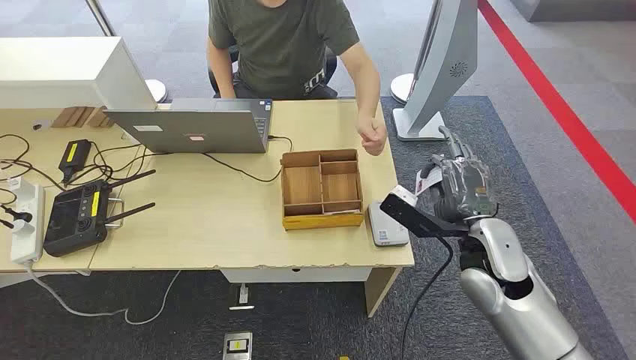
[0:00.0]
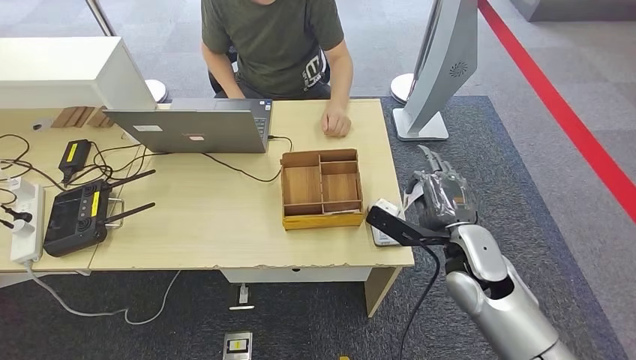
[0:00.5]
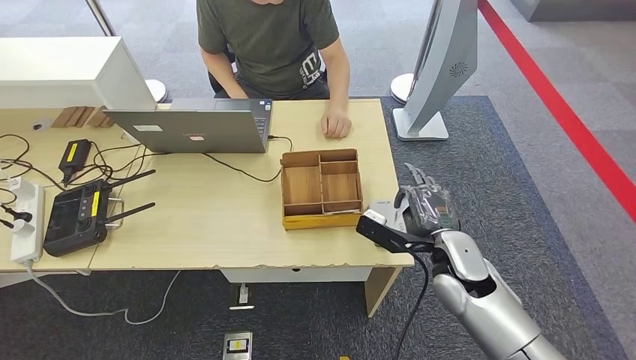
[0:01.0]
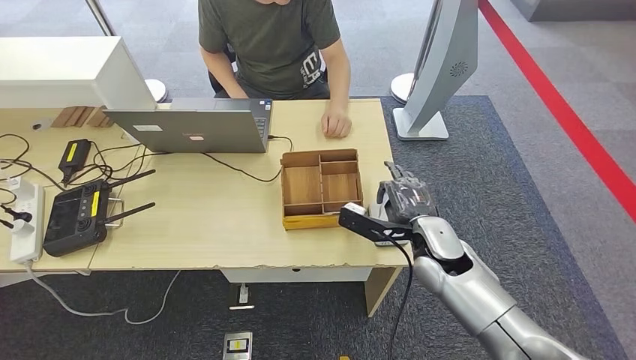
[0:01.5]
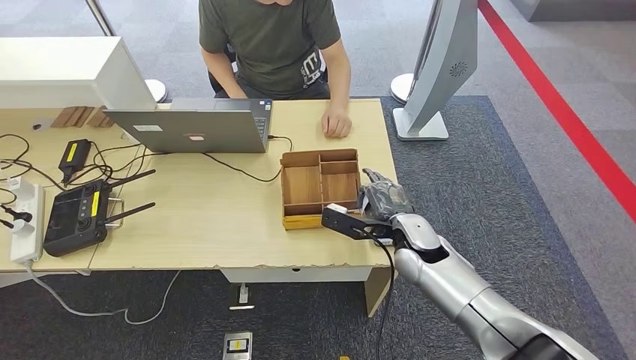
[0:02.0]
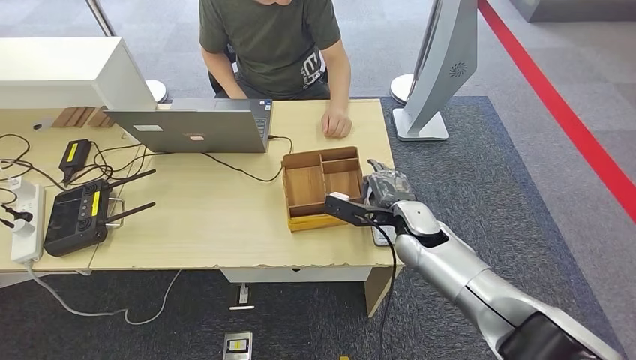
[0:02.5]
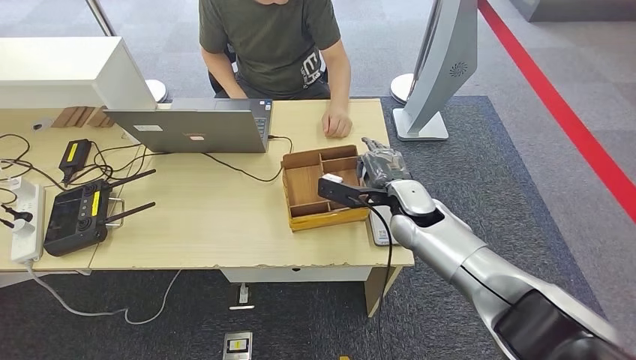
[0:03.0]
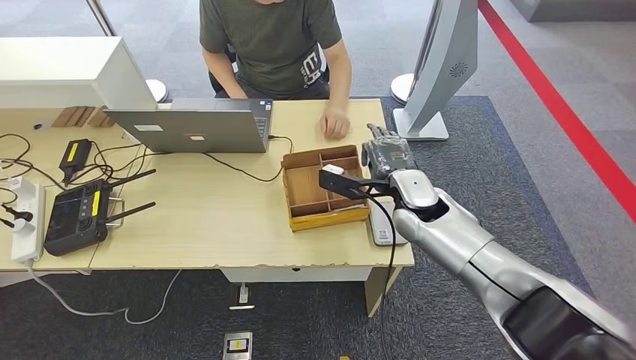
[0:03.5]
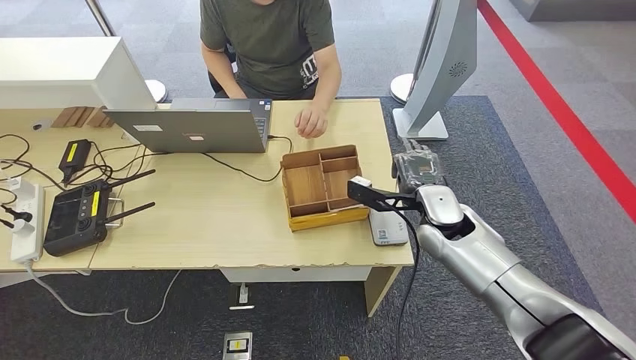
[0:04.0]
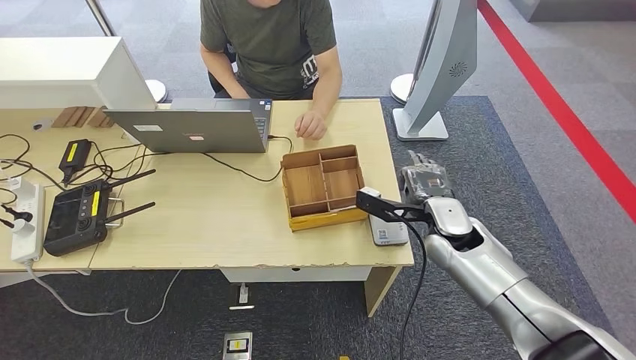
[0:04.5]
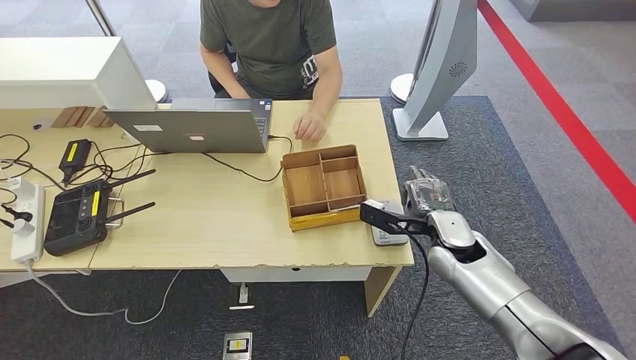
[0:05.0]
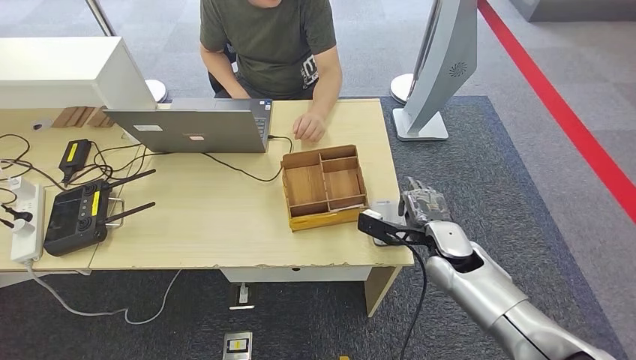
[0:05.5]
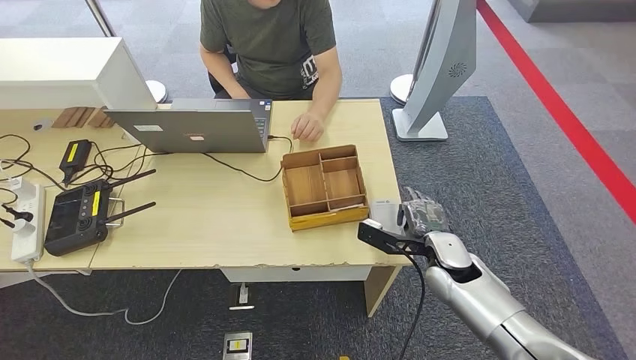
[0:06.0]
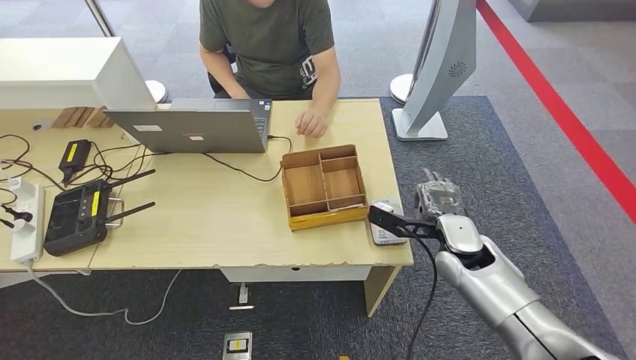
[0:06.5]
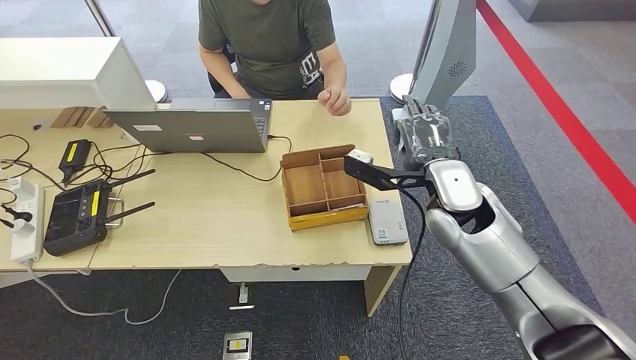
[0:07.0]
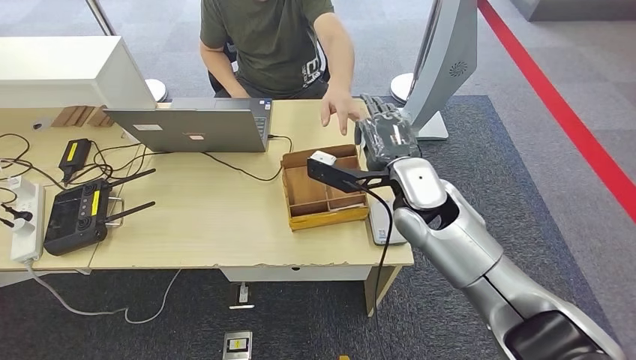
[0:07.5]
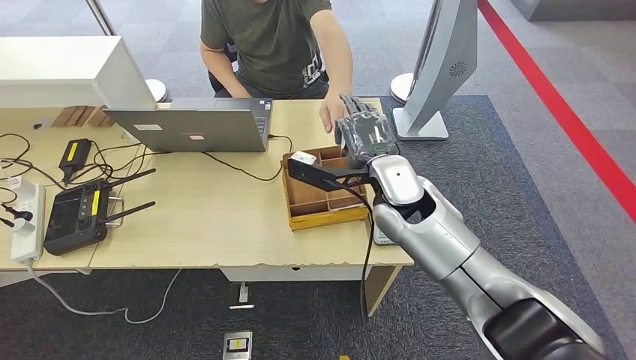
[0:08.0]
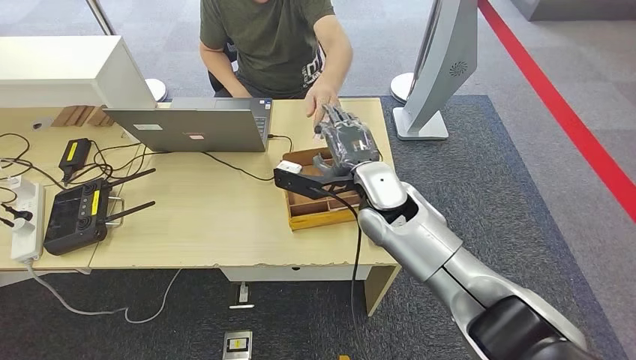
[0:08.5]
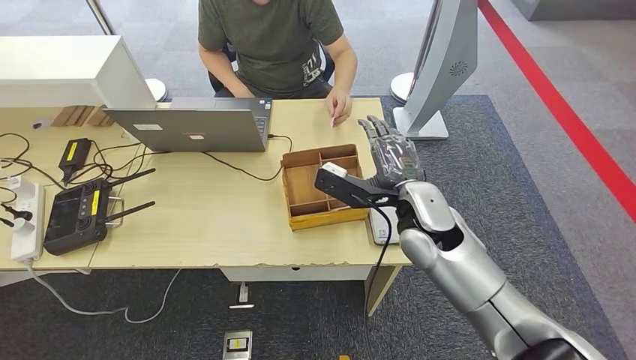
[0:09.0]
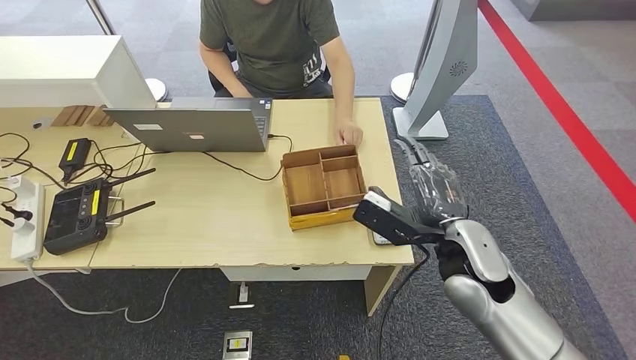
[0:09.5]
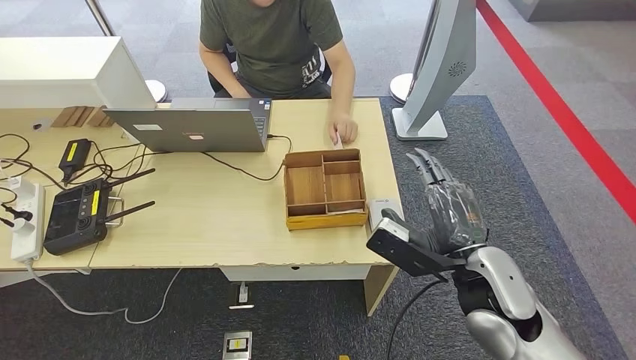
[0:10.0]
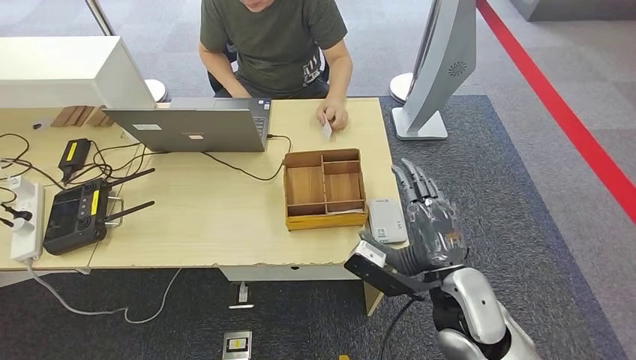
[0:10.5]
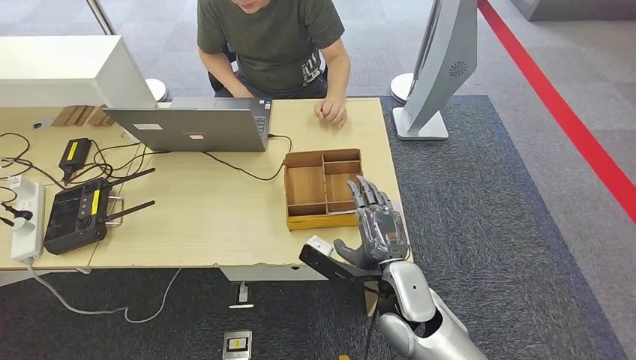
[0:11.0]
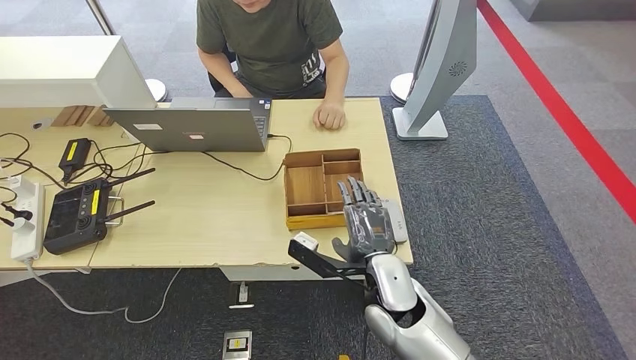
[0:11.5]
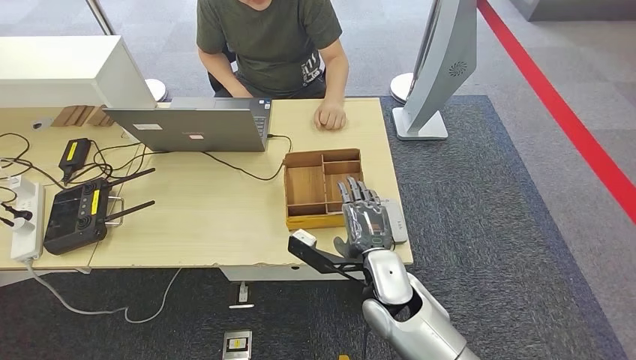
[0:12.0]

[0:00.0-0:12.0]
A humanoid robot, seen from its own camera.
Step, 0:00.0 to 0:00.5: Take the ID card from the person's hand.
Step, 0:01.5 to 0:04.0: Place the ID card on the card reader.
Step, 0:04.5 to 0:08.5: Hand the ID card to the person.
0:02.0 to 0:04.0: The right hand moves upward, approximately 5 cm.
0:04.0 to 0:06.0: The right hand goes some 10 cm downward and backward.
0:06.0 to 0:08.0: The right hand shifts approximately 20 cm upward and to the left.
0:08.0 to 0:10.0: The right hand is displaced backward and to the right by approximately 20 cm.
0:10.0 to 0:12.0: The right hand moves to the left and downward, approximately 15 cm.

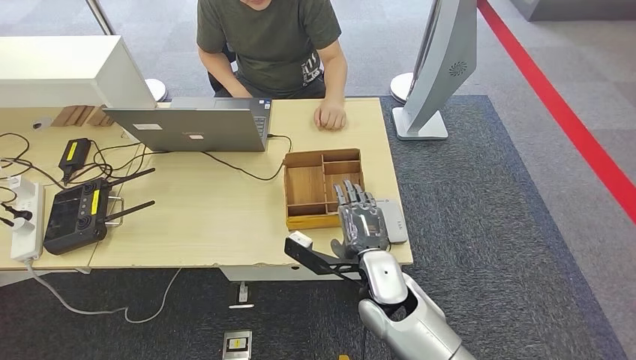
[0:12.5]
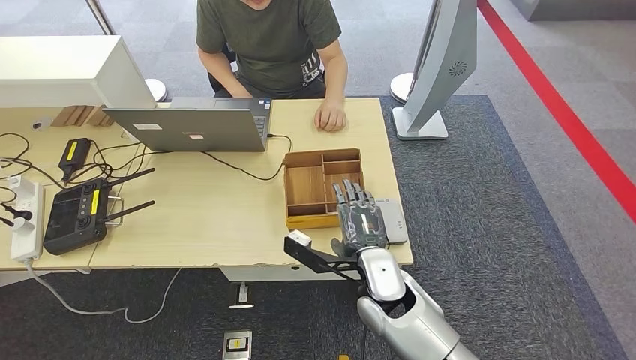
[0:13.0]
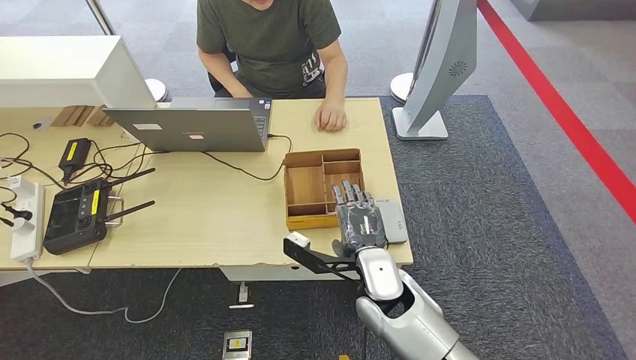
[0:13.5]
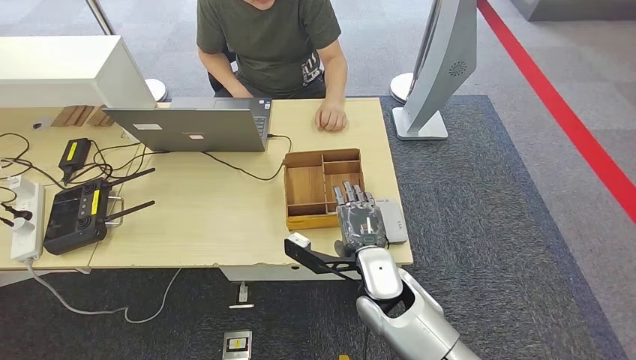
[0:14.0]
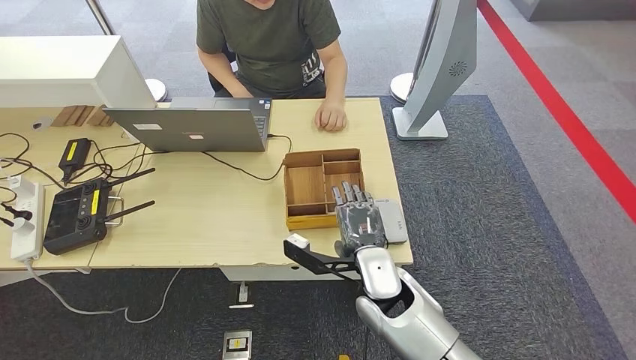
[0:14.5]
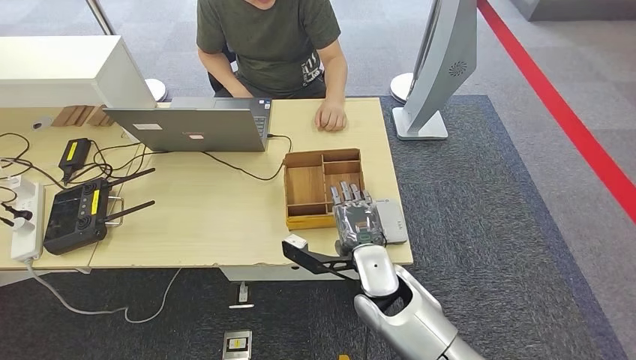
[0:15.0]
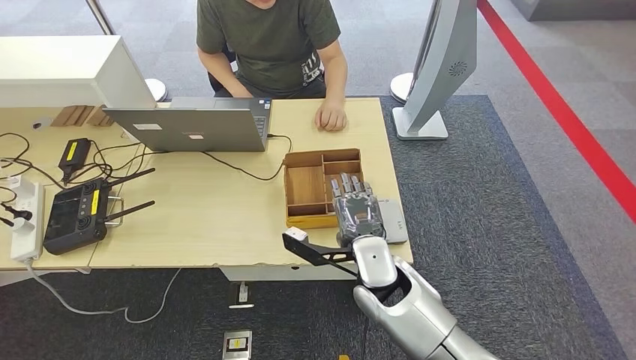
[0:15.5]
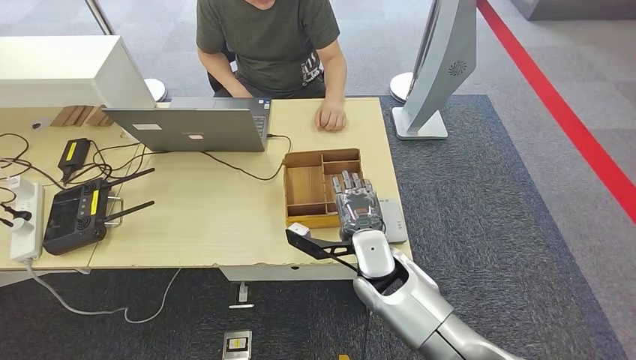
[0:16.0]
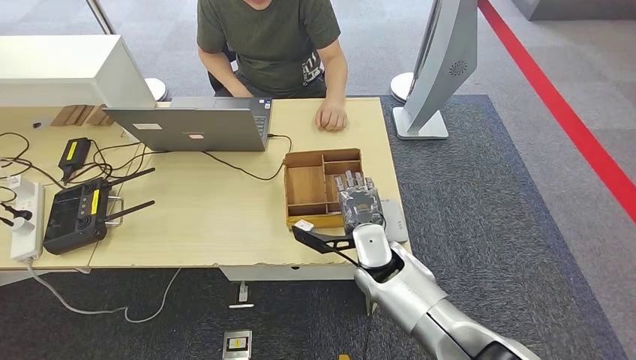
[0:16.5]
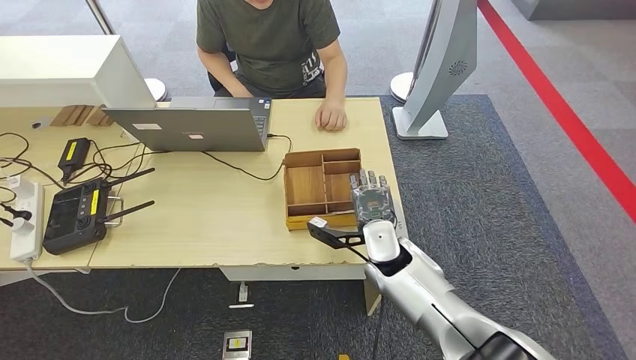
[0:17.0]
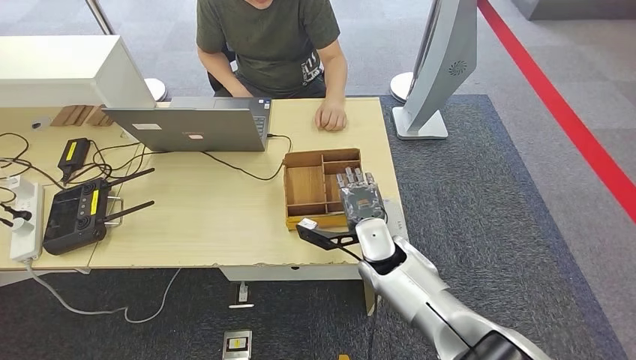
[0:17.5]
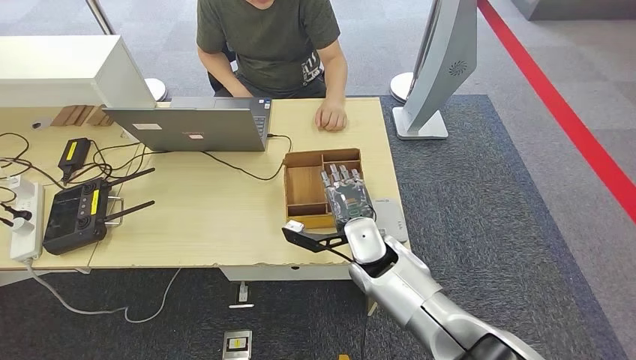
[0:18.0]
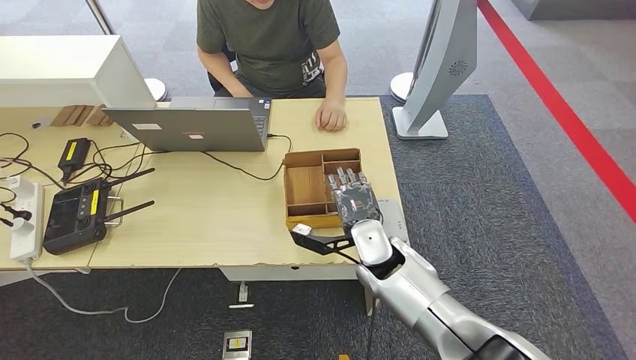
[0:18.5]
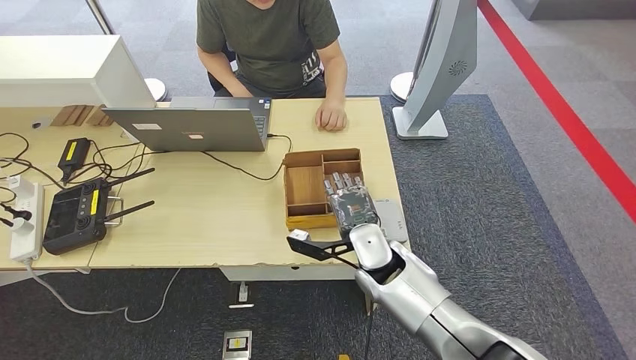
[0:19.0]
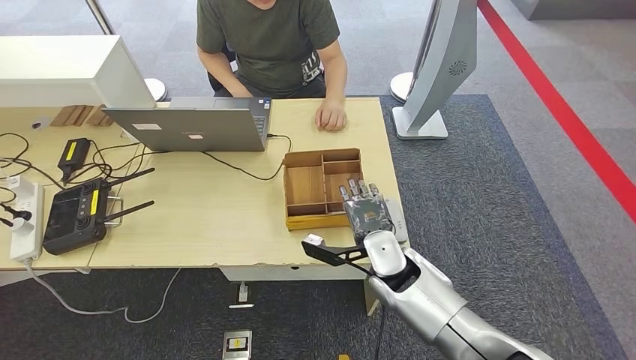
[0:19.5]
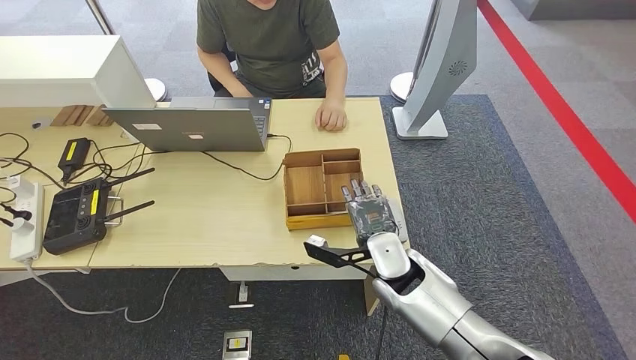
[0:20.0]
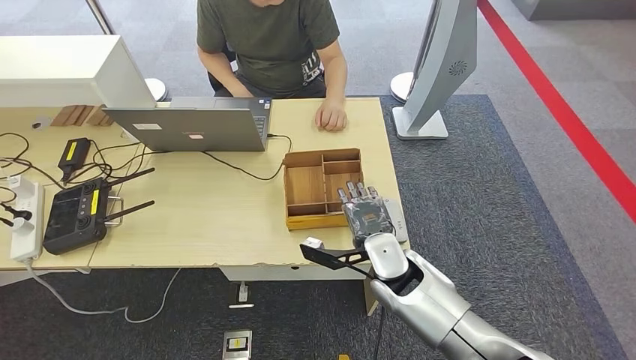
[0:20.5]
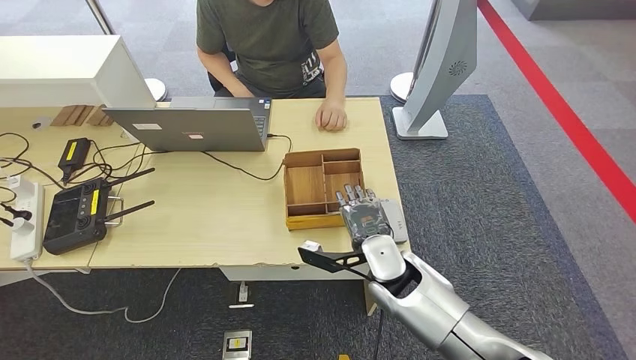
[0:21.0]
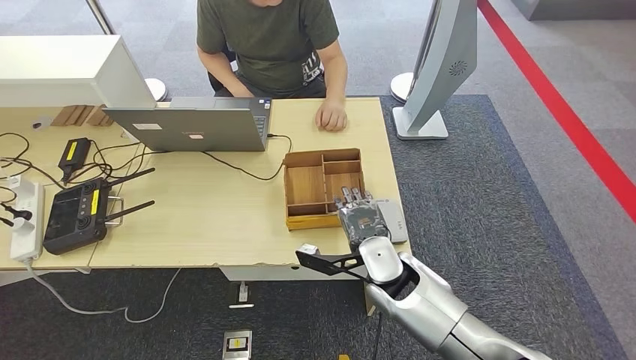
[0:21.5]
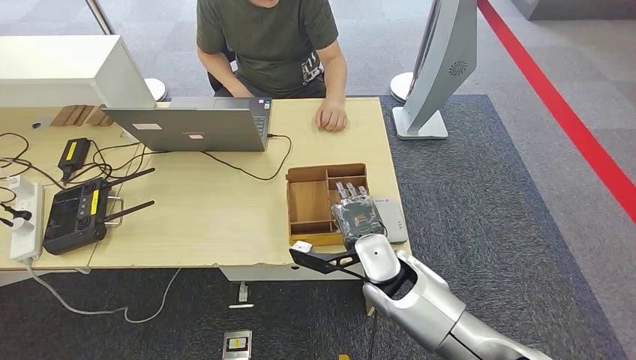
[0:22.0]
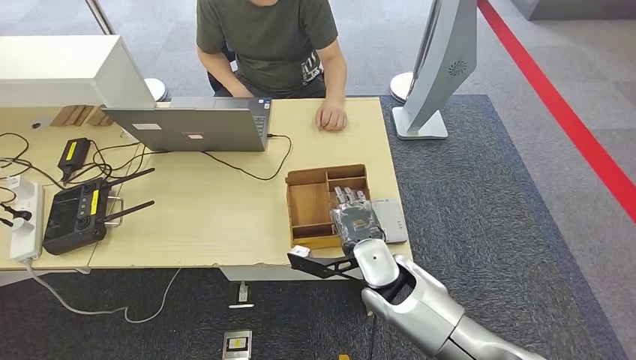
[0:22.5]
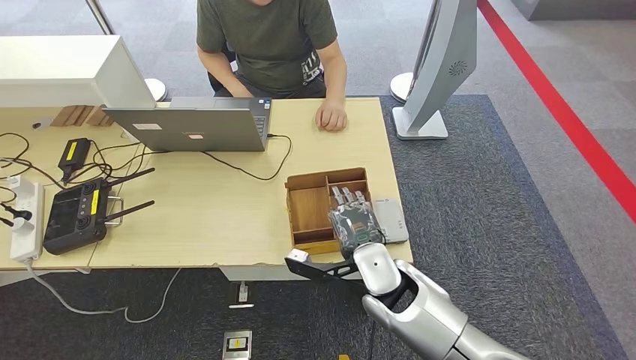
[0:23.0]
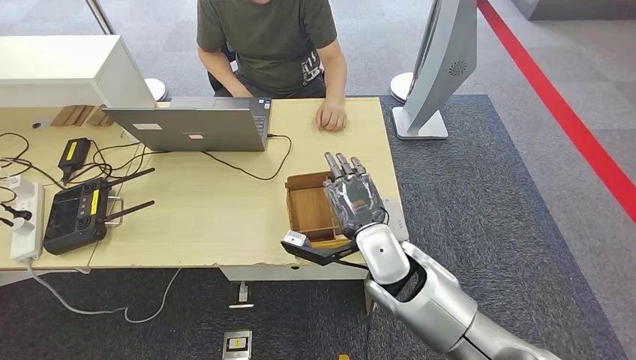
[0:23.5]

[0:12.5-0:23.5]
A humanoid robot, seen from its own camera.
Step, 0:12.5 to 0:23.0: Pick up the room key from the key card box.
0:12.5 to 0:16.0: The hands stay close to where they were, moving slightly.
0:16.0 to 0:21.5: There are only small adjustments of the hands.
0:21.5 to 0:23.5: The right hand travels upward by approximately 5 cm.
